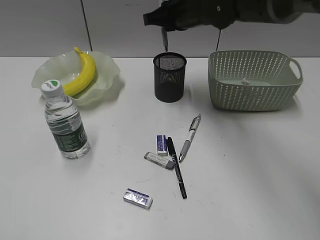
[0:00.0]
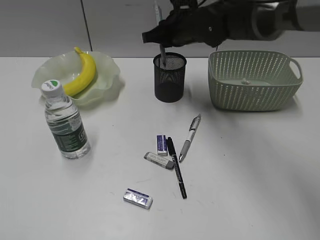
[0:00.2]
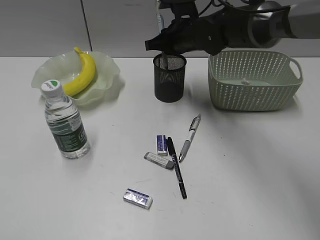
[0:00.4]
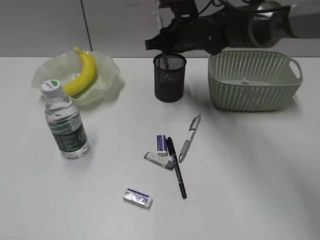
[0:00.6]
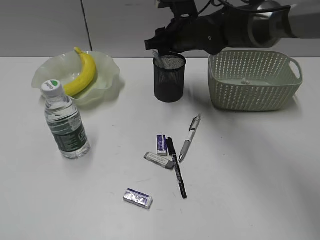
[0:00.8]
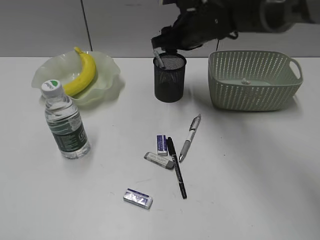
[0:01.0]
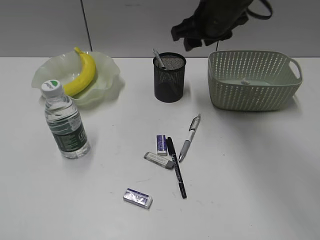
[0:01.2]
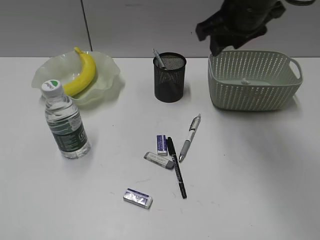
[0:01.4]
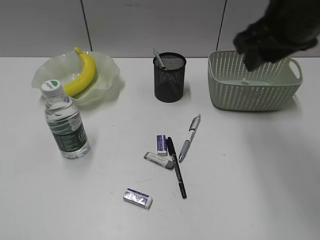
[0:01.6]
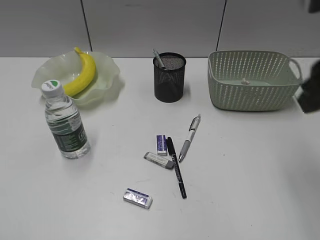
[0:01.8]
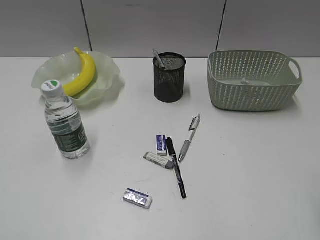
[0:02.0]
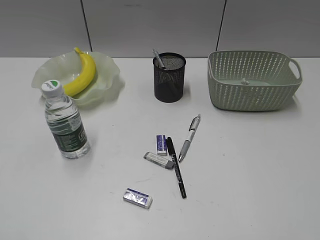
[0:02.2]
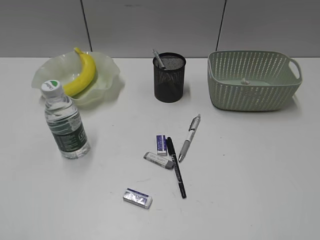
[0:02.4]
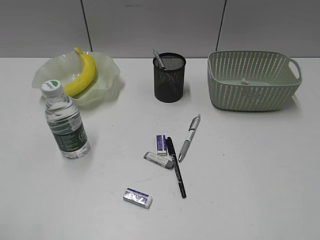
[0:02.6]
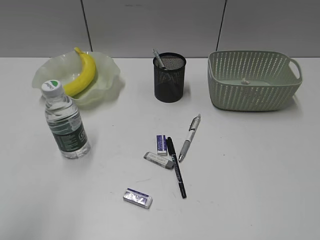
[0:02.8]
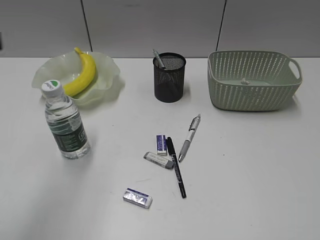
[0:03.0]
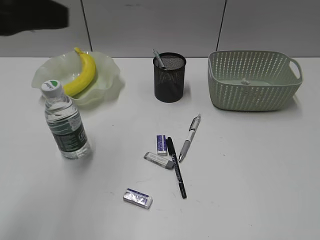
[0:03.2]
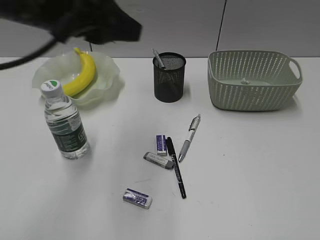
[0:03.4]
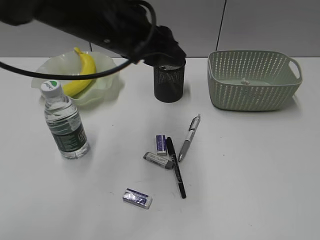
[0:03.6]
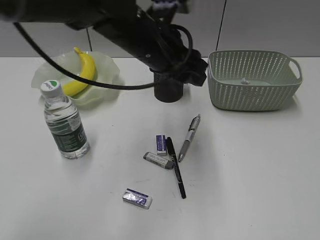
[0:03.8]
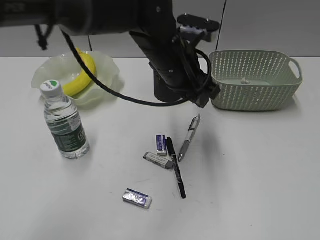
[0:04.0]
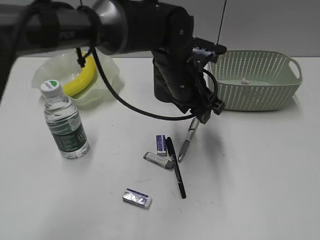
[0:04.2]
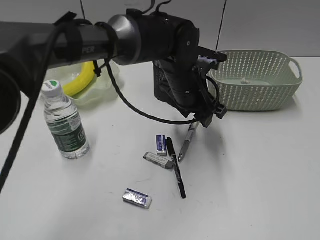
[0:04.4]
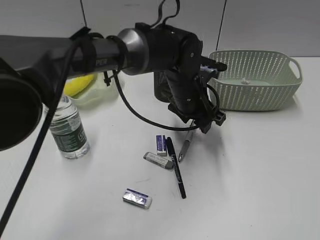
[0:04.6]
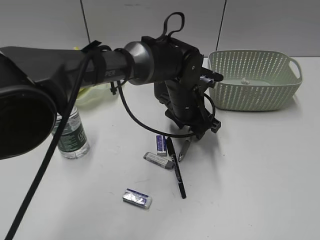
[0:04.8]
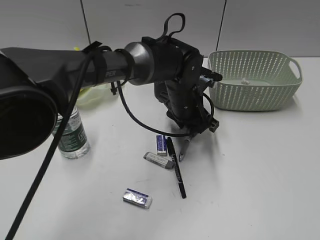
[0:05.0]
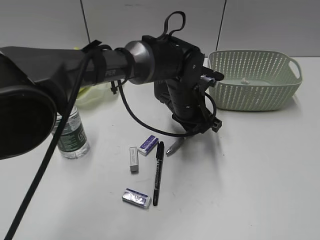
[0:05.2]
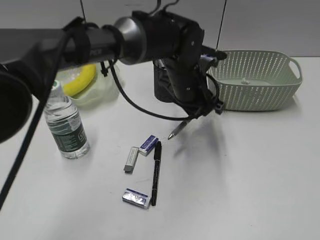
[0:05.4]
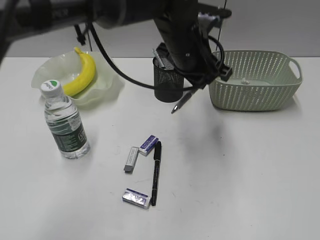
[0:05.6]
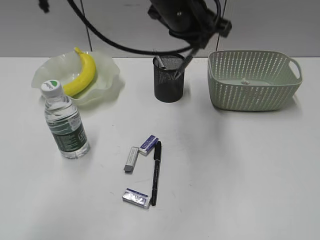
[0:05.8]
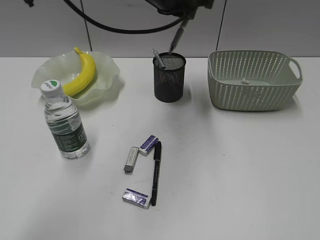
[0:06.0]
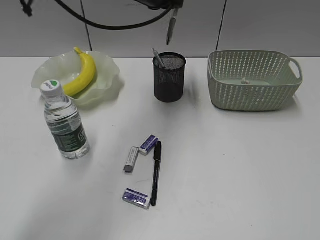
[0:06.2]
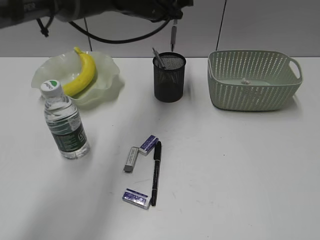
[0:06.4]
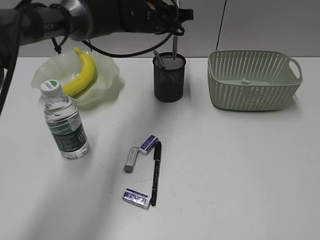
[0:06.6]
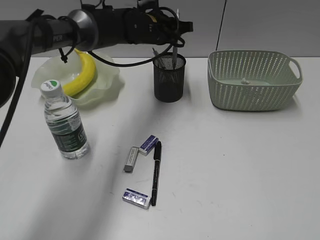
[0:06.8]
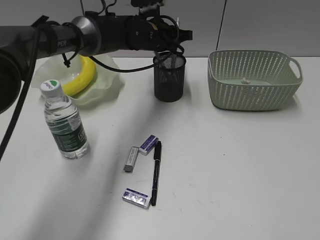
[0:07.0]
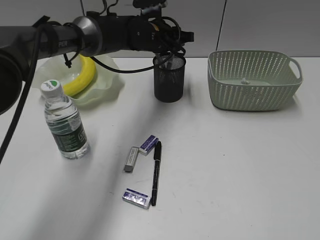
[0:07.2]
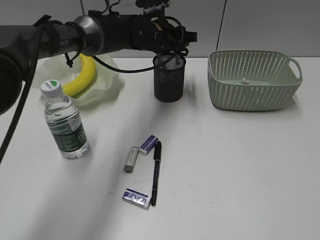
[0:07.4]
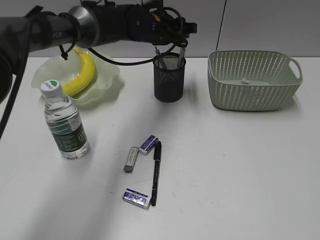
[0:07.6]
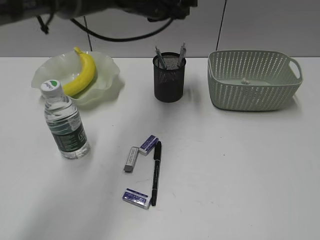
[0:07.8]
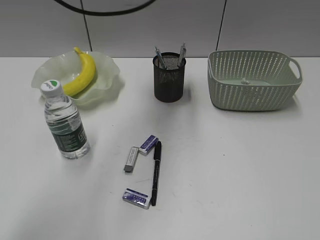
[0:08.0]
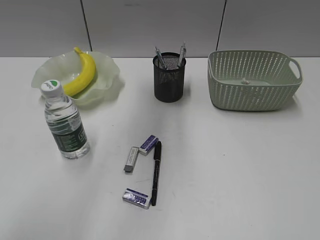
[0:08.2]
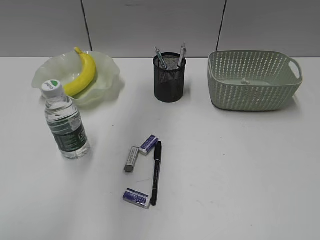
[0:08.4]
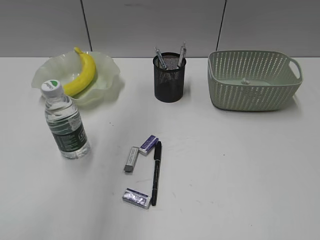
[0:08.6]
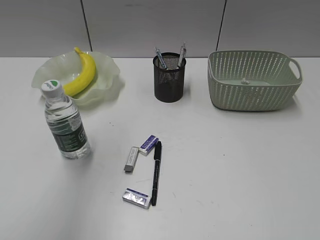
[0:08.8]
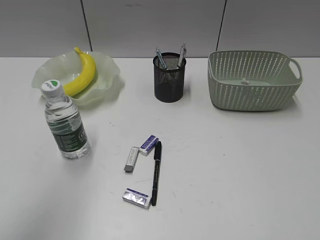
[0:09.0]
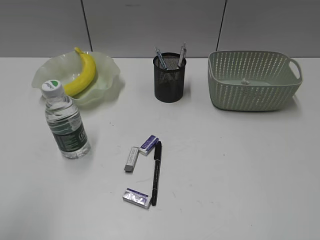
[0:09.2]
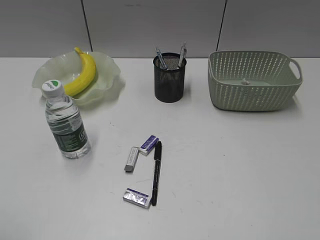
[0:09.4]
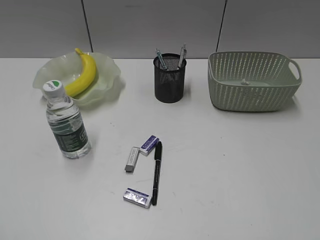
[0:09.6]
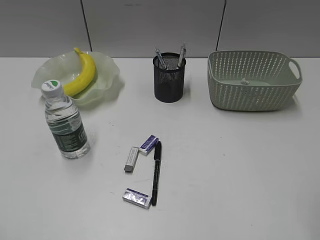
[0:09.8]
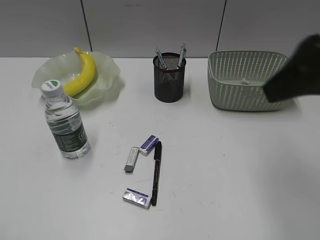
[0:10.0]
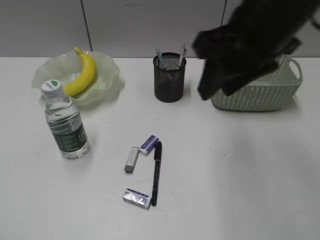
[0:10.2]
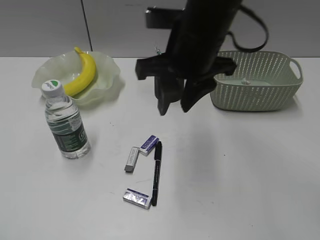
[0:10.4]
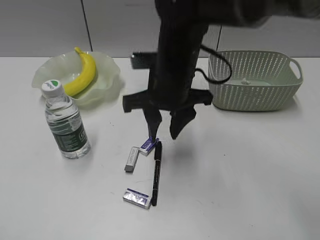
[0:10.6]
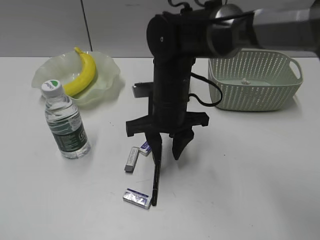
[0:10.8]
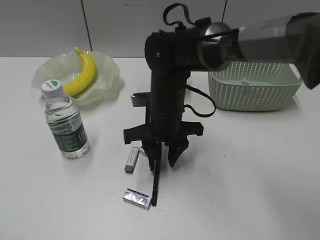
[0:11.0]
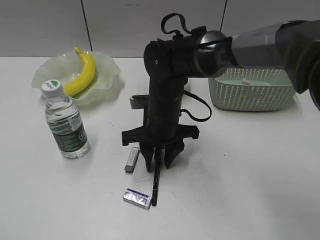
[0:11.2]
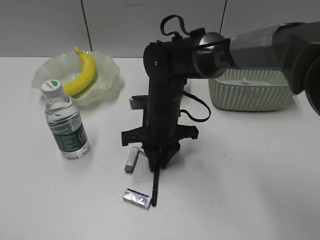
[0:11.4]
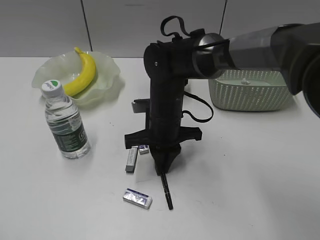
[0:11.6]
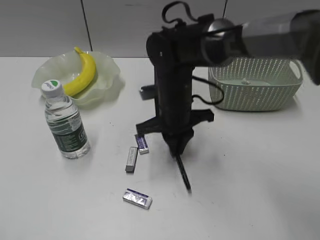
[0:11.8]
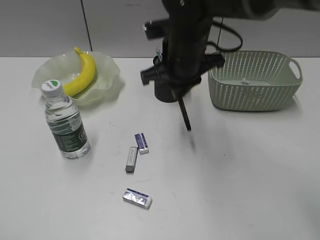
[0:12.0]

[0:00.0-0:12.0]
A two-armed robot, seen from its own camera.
Step, 0:01.0 to 0:05.2: Grasp the gray pen with left gripper.
Step, 0:05.4 to 0:07.4: Place the gray pen in pen holder with left gripper.
Step, 0:07.6 to 0:11.6: Grasp the black pen with right gripper.
0:00.0 to 0:01.6: The right gripper goes about 20 cm backward, to the right and upward, and opens.
0:01.6 to 0:03.0: The left gripper moves forward, to the right and upward, some 15 cm, while the right gripper moves backward and to the right, approximately 35 cm.
0:03.0 to 0:04.4: The left gripper goes roughly 40 cm to the right, forward and downward.
0:04.4 to 0:06.0: The left gripper moves upward, about 15 cm, and closes its fingers.
0:06.0 to 0:07.6: The left gripper goes about 15 cm downward and forward, and opens.
0:07.6 to 0:09.0: The left gripper shifts approximately 50 cm backward, to the left and upward.
0:09.0 to 0:10.4: The right gripper travels forward and to the left by roughly 40 cm. The left gripper shifts some 20 cm backward, downward and to the left.
0:10.4 to 0:12.0: The right gripper travels forward by about 5 cm, reaches approximately 20 cm downward, then returns, and closes up.

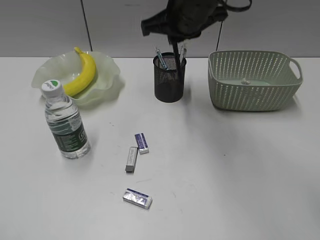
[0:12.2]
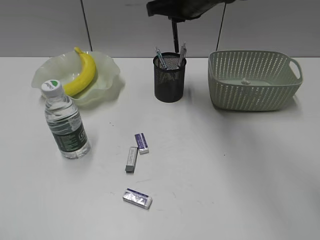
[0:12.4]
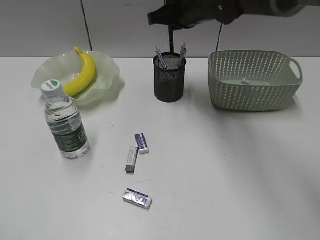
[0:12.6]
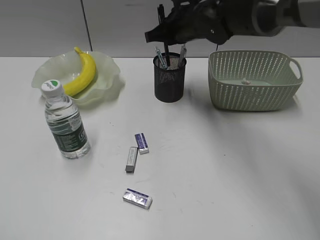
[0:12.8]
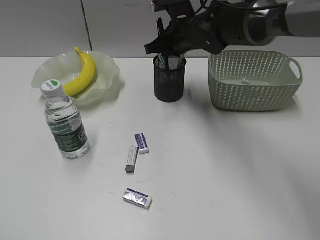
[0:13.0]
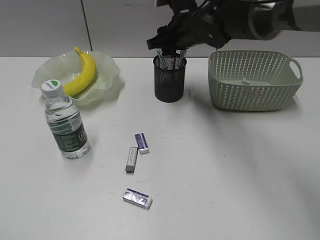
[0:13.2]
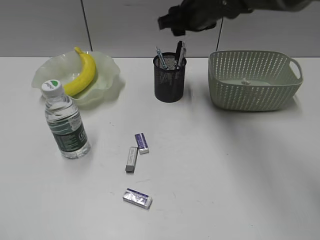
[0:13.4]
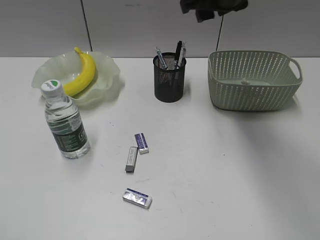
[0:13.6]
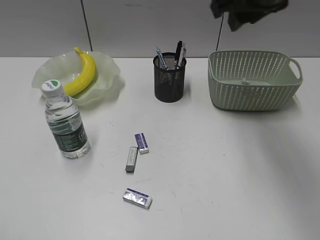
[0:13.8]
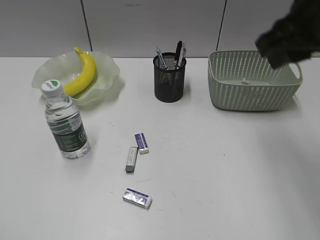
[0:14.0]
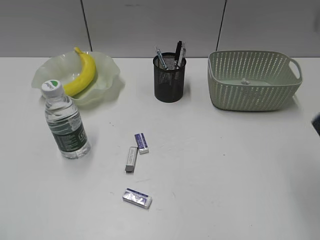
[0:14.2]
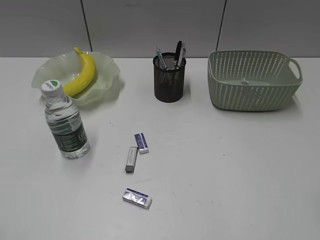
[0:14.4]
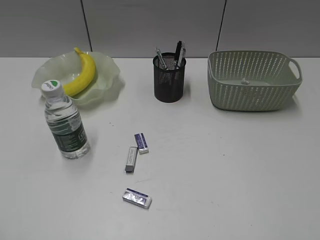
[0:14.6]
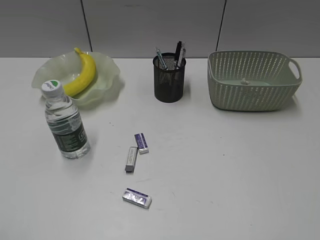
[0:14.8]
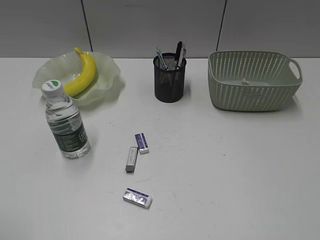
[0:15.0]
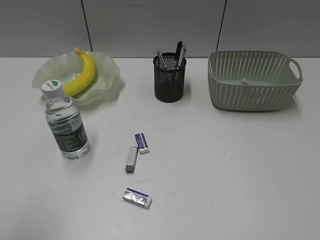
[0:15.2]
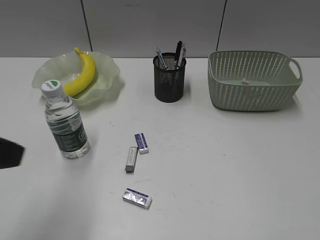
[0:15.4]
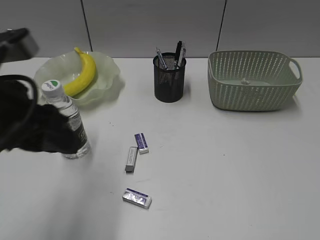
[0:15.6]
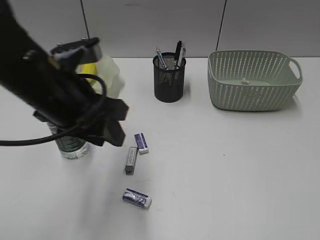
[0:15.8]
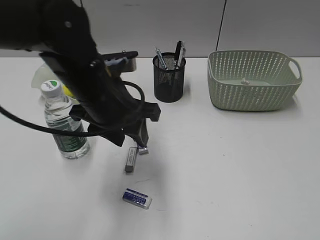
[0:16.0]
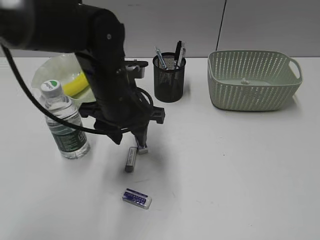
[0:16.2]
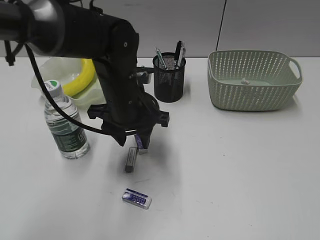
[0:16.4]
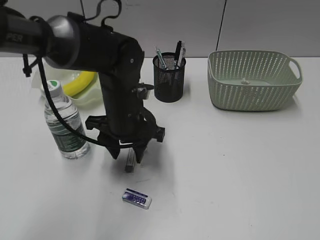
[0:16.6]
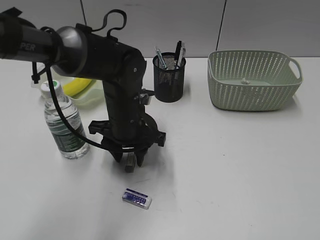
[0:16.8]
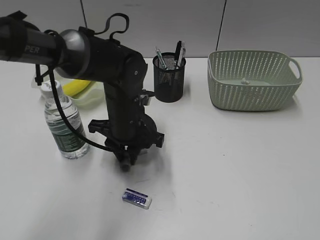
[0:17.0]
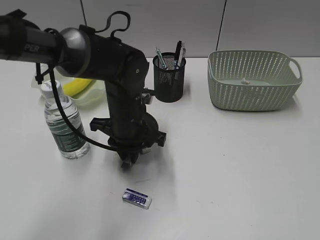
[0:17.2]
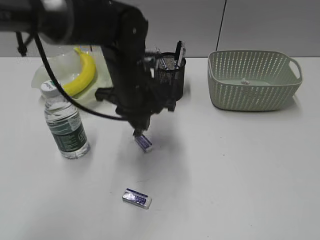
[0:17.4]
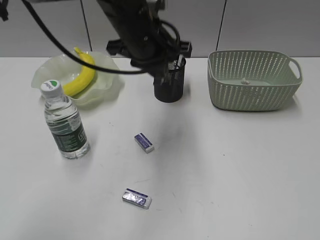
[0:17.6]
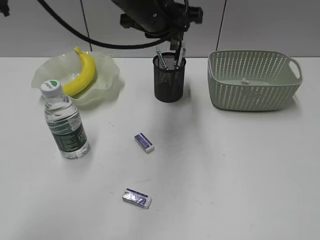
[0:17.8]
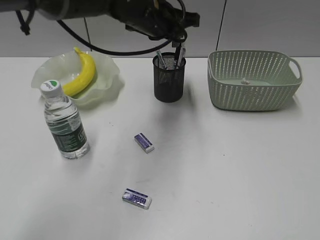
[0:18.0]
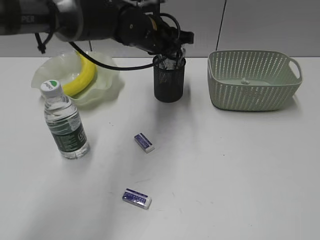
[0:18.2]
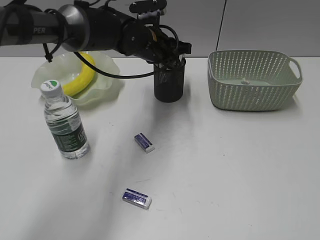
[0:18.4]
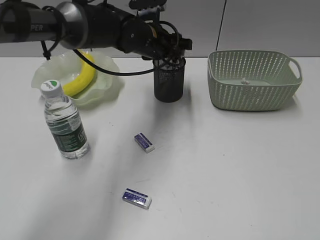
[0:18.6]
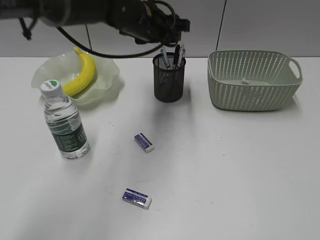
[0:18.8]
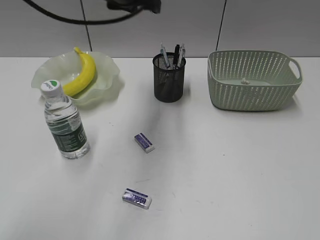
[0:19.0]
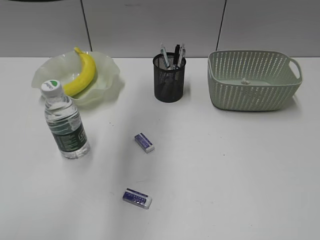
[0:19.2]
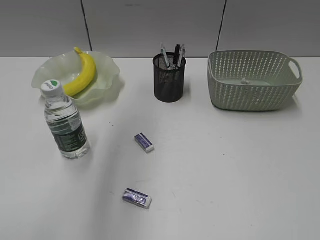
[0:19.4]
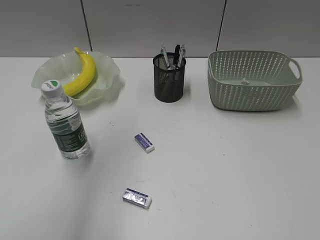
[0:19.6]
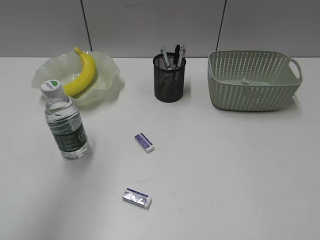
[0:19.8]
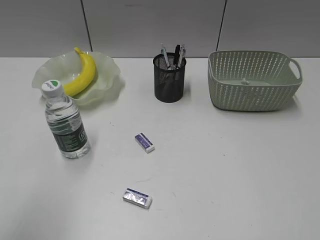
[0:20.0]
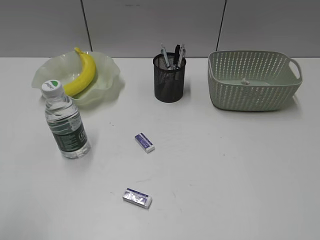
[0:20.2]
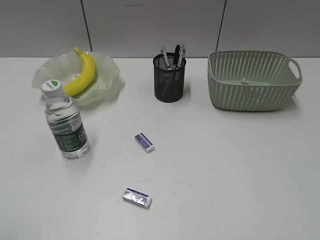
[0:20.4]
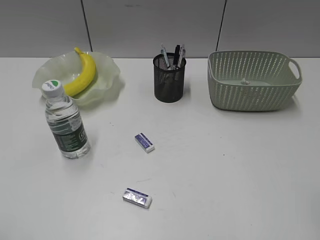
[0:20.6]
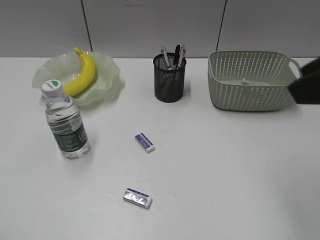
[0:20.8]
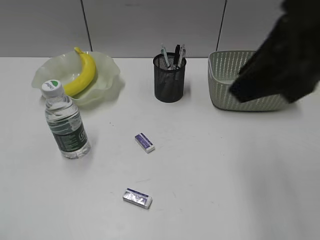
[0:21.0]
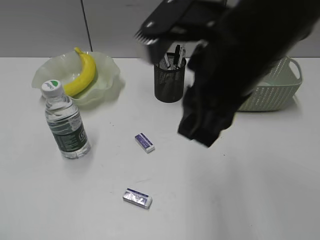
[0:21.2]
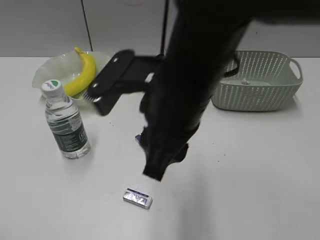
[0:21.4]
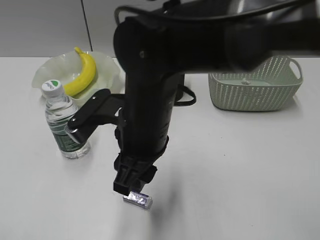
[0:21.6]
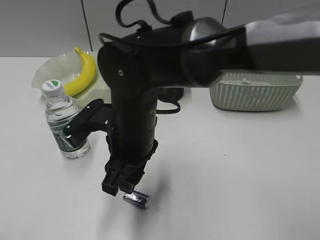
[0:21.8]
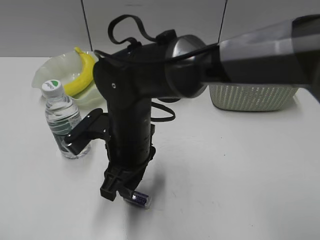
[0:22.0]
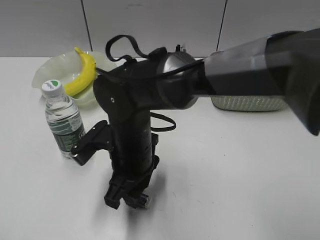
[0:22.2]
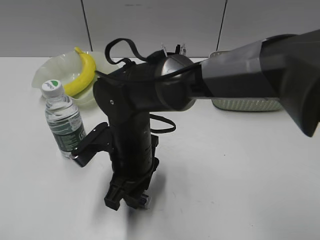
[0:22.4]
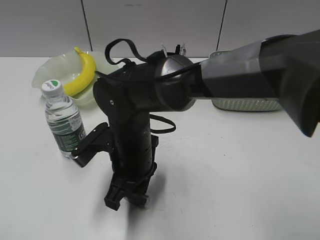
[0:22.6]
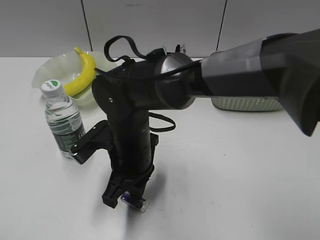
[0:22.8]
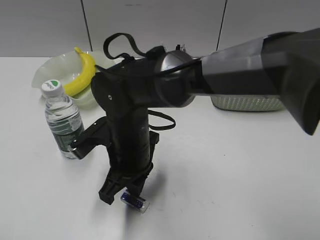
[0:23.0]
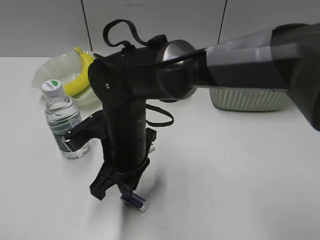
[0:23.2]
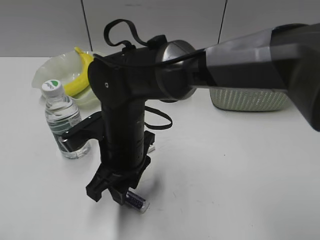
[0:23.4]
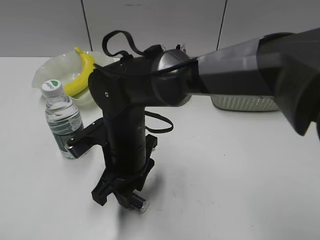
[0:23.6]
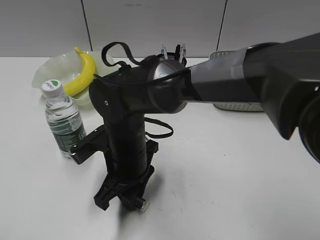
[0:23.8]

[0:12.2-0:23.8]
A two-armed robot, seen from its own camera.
Step, 0:12.2 to 0:13.2: Place the black pen in pen holder with right gripper.
Step, 0:13.4 to 0:17.0: Grasp the eraser with left gripper.
Step, 0:17.2 to 0:18.6: Place the eraser in pen holder with left gripper.
Step, 0:18.8 to 0:22.6: Grasp the eraser with right gripper.
0:12.2 to 0:13.6: The right gripper shifts roughly 5 cm to the right, travels downward and back again, some 10 cm each way, and opens its fingers.
0:13.6 to 0:15.0: The right gripper travels backward and to the right by roughly 50 cm.
0:15.0 to 0:16.6: The left gripper heads forward, to the right and downward, covering roughly 40 cm.
0:16.6 to 0:18.0: The left gripper heads upward and forward, covering roughly 15 cm, and closes its fingers.
0:18.0 to 0:19.4: The left gripper moves upward, to the left and backward, about 25 cm, and opens up.
0:19.4 to 0:21.0: The right gripper shifts roughly 25 cm forward and to the left; the left gripper shifts roughly 35 cm backward, to the left and downward.
0:21.0 to 0:22.4: The right gripper goes some 30 cm downward and to the left.
0:22.4 to 0:23.8: The right gripper closes, then opens again.
